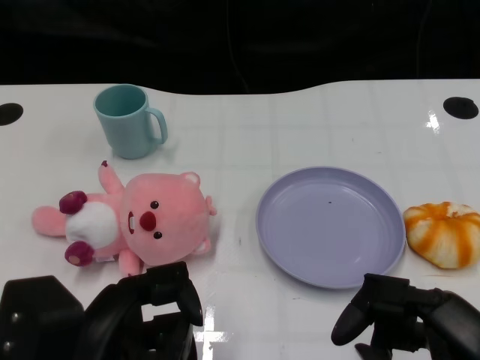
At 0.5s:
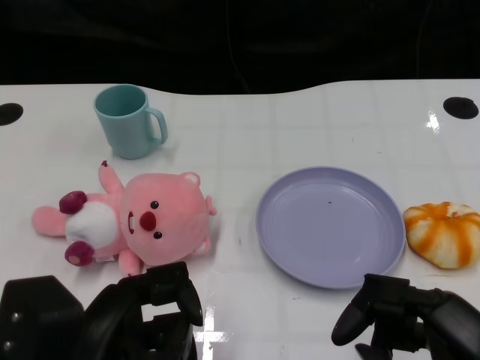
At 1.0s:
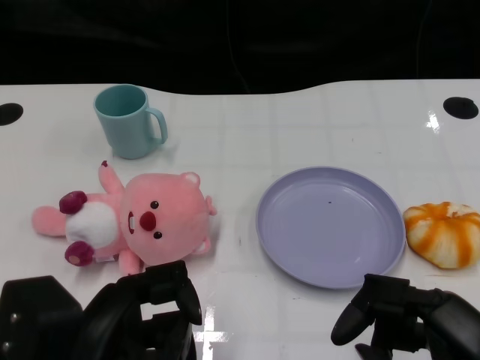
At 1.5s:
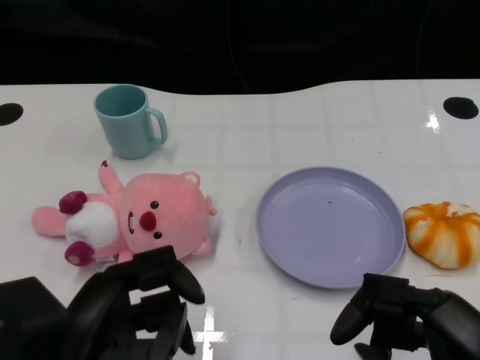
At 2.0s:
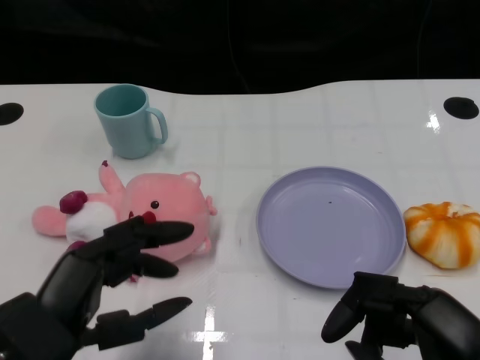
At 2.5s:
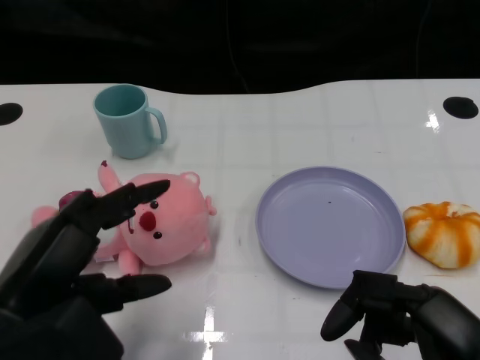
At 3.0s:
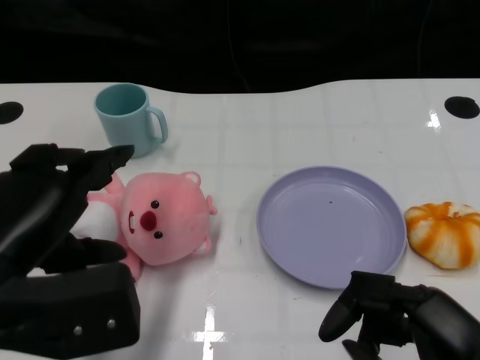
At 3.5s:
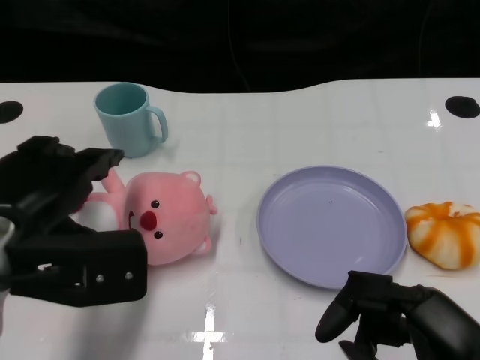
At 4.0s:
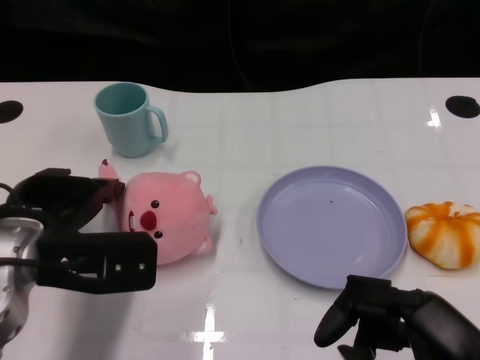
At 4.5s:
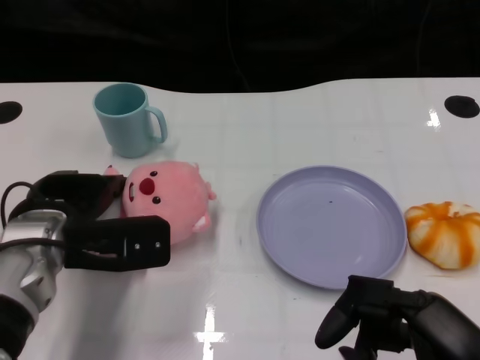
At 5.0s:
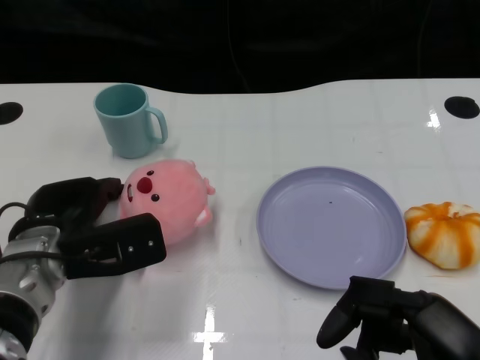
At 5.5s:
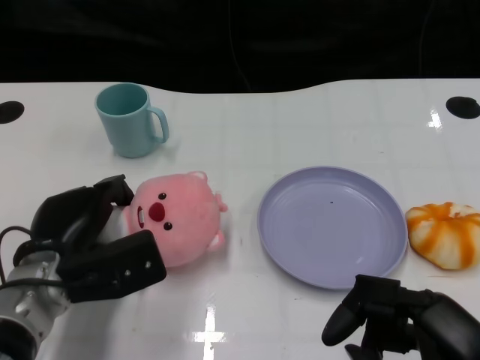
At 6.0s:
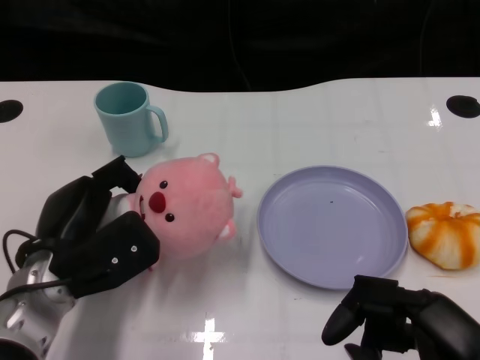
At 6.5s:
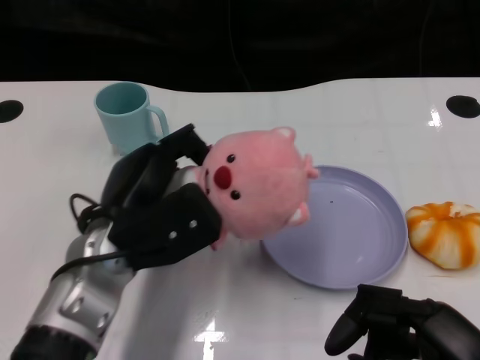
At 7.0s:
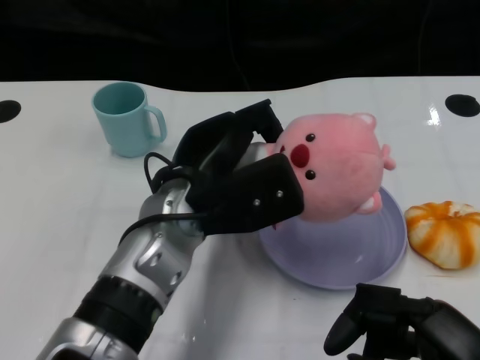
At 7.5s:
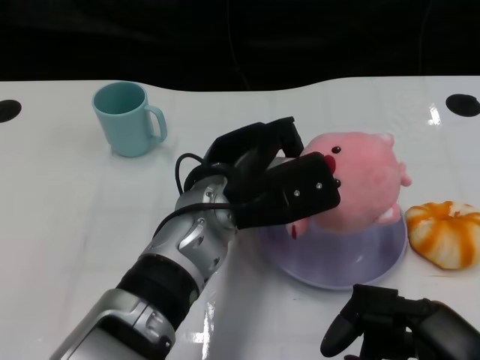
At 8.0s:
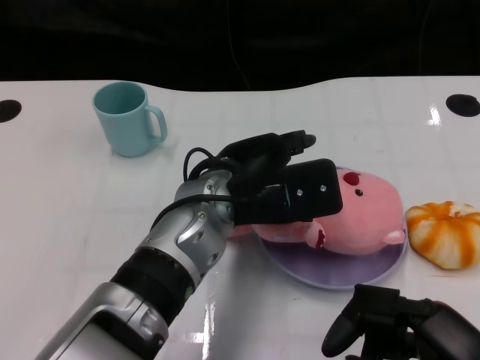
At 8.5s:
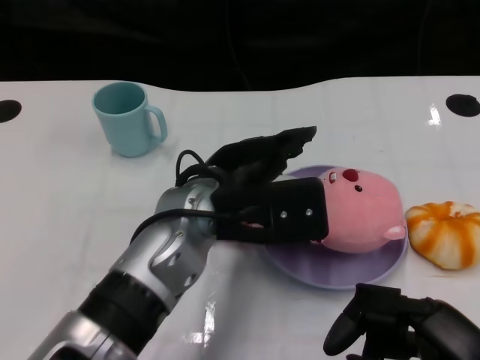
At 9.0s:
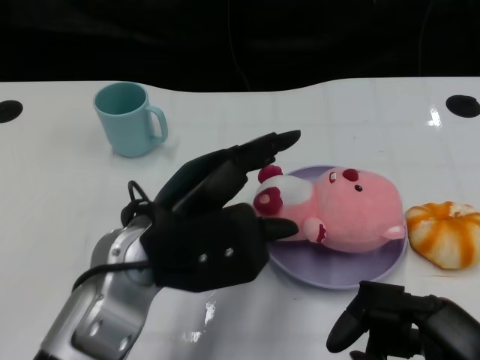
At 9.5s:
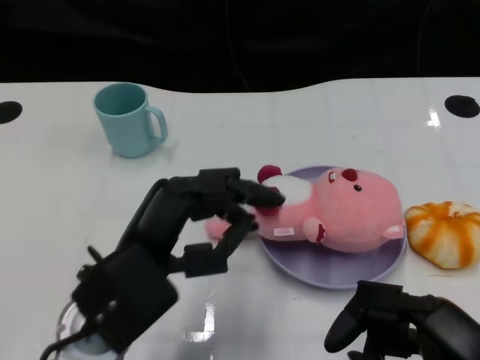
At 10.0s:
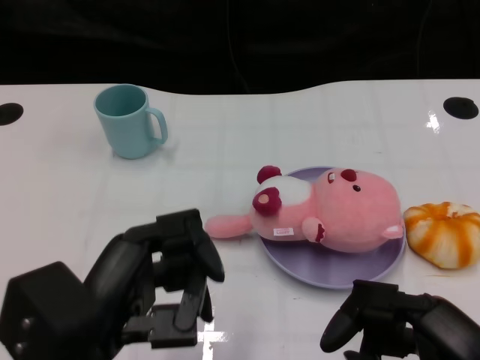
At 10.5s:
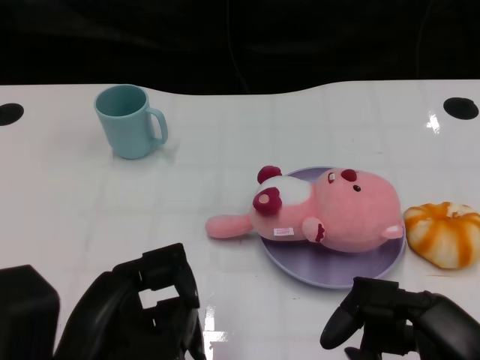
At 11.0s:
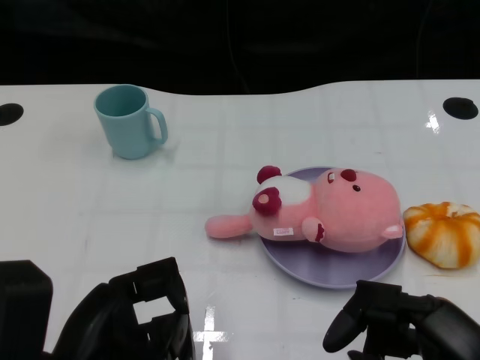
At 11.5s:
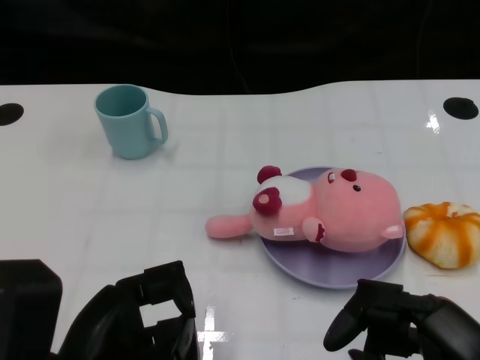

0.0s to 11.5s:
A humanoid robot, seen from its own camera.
Task of the whole recording: Pick up the doll on one side of the plate and place it into the plate.
Step, 1.5s to 5.5s: Grasp the pink doll with the left gripper.
Step, 6.0s to 8.0s: Place the pink doll into the plate with the left gripper.
2.0s to 4.0s: The left hand is displaced forward by some 10 cm.
4.0s to 6.0s: The left hand moves downward, some 5 cm.
6.0s to 7.5s: The left hand heads to the right and upward, covering some 20 cm.
7.5s to 9.5s: The left hand travels to the left and backward by some 15 cm.
9.5s to 11.5s: The left hand moves backward, approximately 5 cm.
